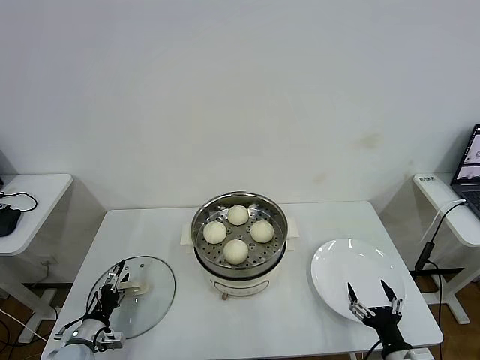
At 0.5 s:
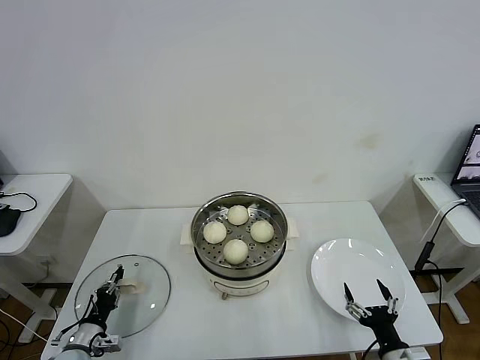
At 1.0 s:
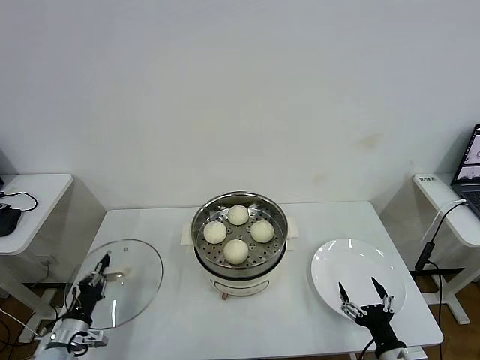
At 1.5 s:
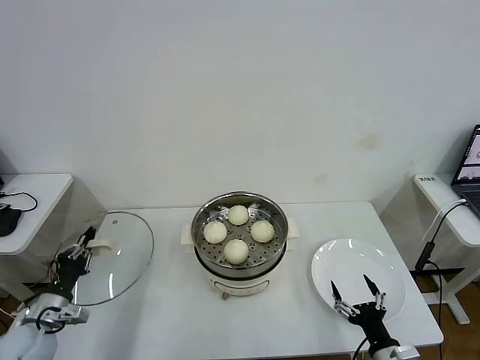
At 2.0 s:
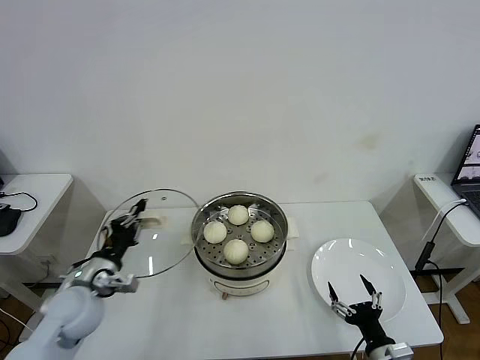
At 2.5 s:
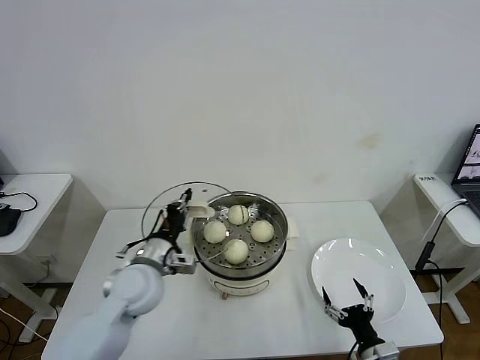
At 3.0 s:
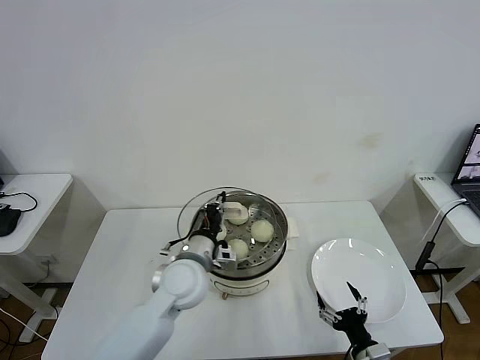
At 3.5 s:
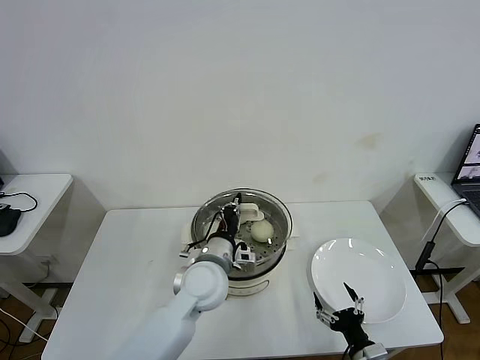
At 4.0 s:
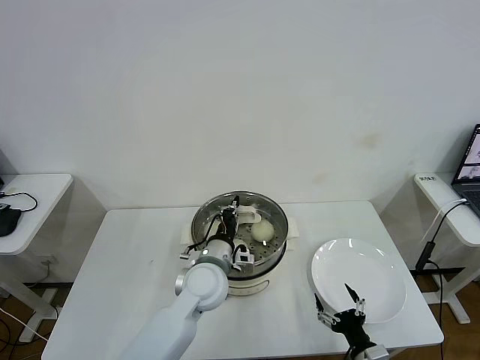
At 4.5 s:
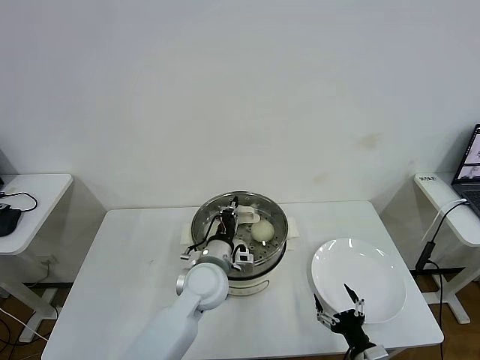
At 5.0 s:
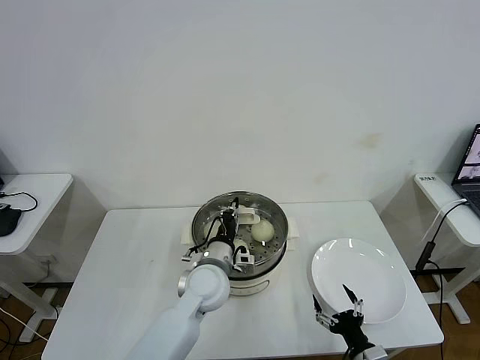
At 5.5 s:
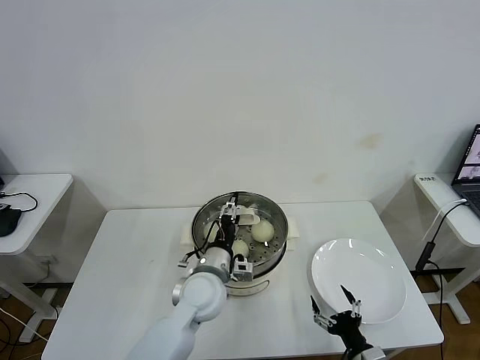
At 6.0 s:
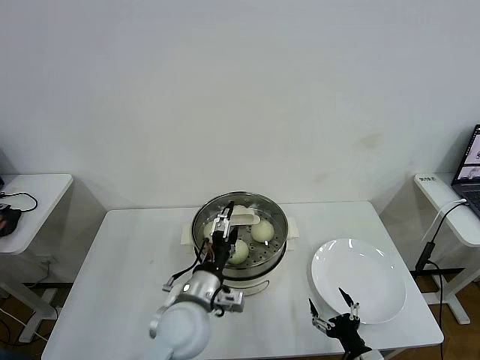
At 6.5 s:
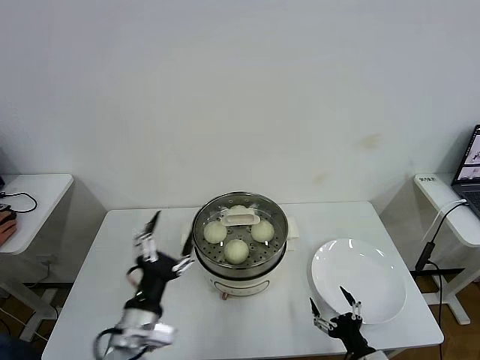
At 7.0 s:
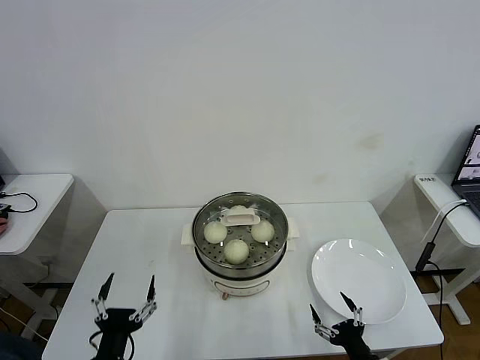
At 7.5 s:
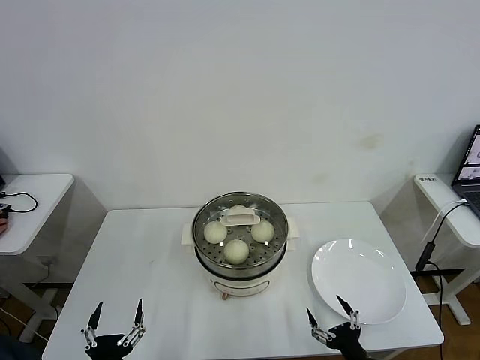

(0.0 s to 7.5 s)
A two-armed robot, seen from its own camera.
Task of the whole recording: take steamed baozi put them in steamer then cover it.
Step, 1.0 s - 5.5 s: Place the pot lid on the steamer with left gripper.
0.0 s - 2.0 s: The left gripper goes some 20 cm upward, and closes up.
2.0 s - 4.0 s: The left gripper is displaced to the right by approximately 25 cm.
4.0 s - 5.5 s: The left gripper opens up.
5.5 s - 7.5 s: The left gripper heads backward and to the left, covering some 30 cm, and opens its fingers.
